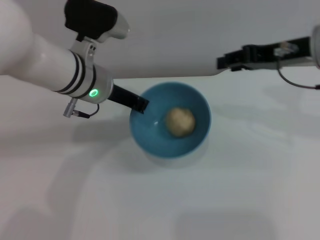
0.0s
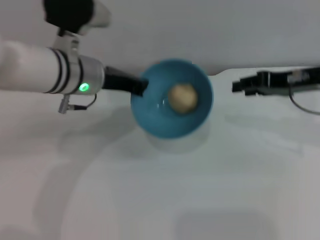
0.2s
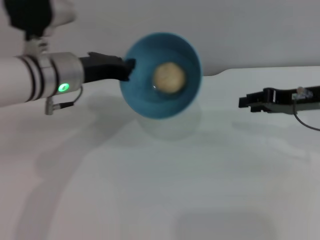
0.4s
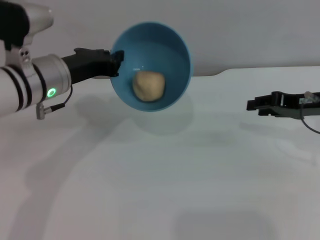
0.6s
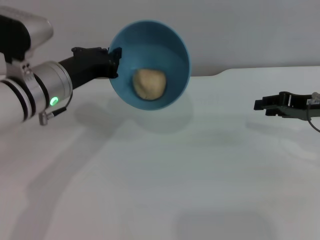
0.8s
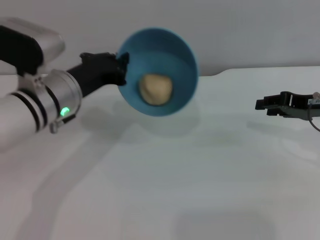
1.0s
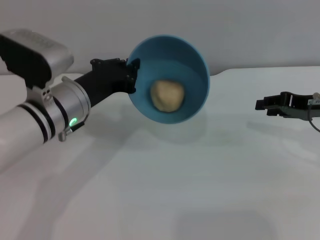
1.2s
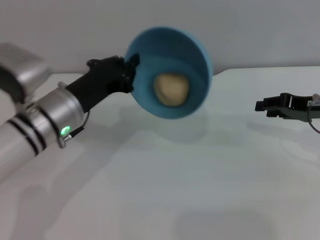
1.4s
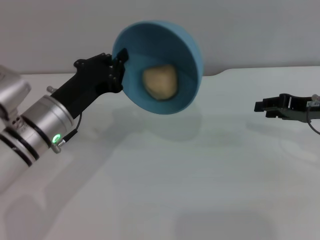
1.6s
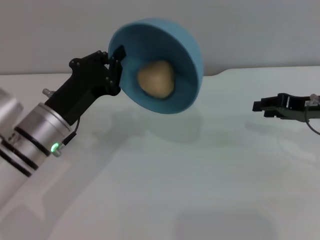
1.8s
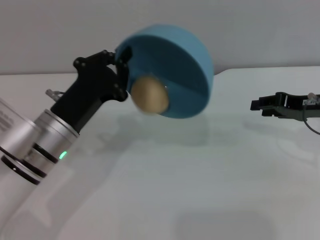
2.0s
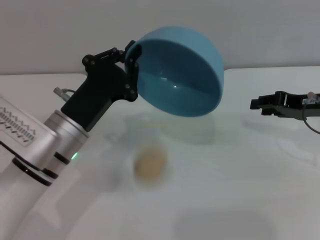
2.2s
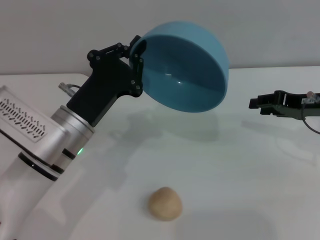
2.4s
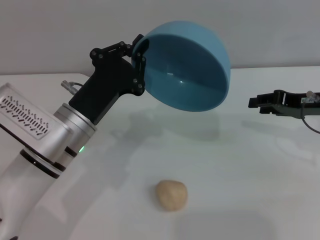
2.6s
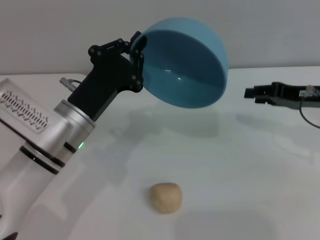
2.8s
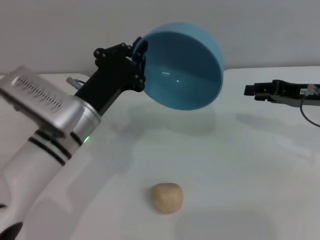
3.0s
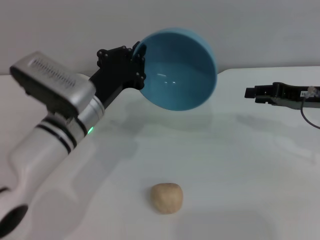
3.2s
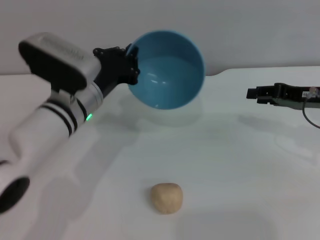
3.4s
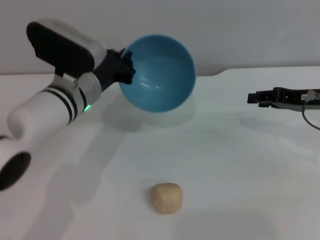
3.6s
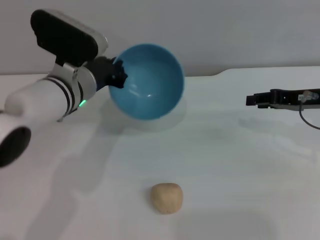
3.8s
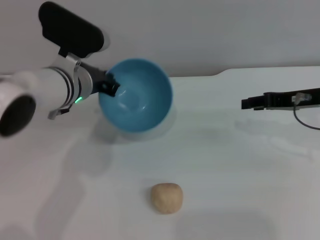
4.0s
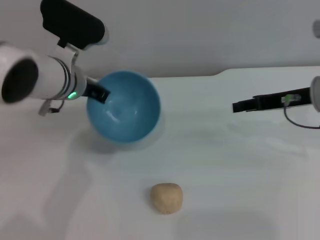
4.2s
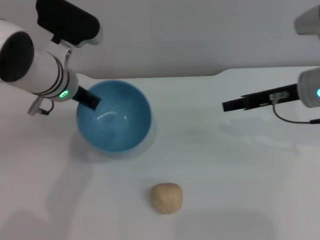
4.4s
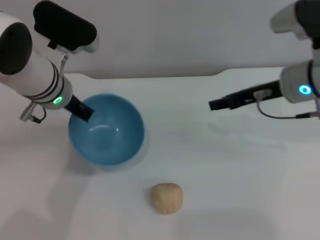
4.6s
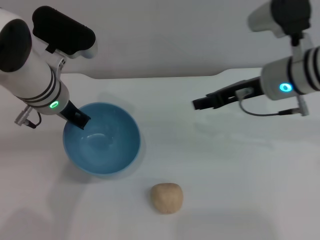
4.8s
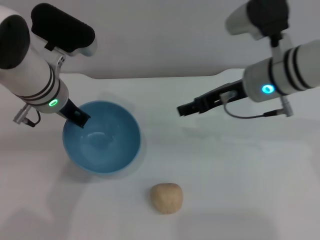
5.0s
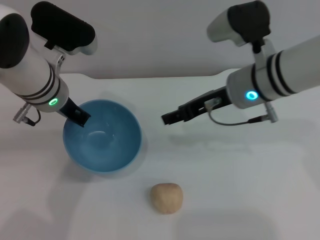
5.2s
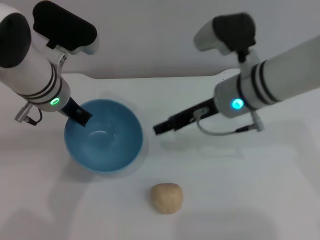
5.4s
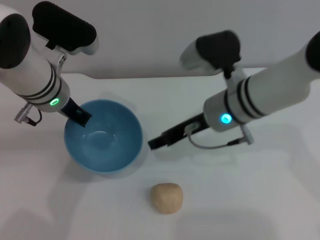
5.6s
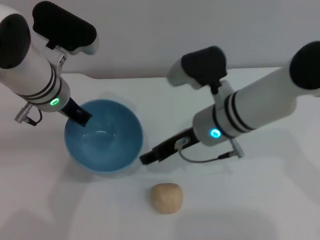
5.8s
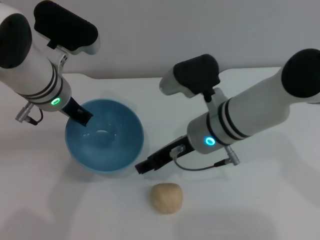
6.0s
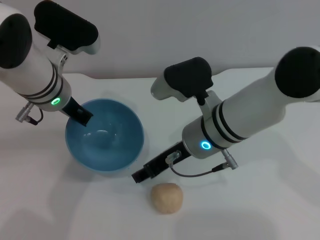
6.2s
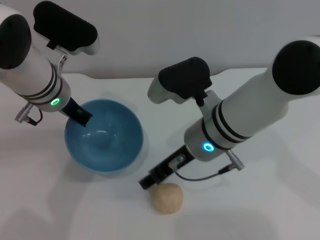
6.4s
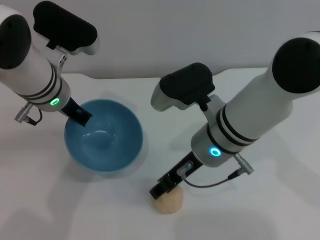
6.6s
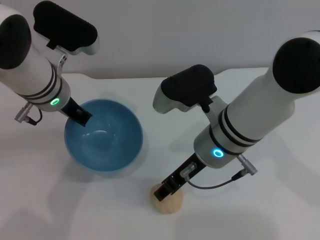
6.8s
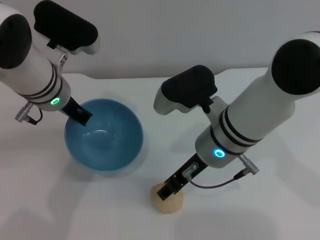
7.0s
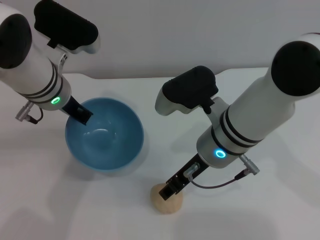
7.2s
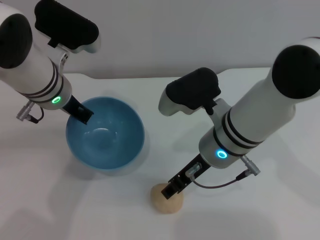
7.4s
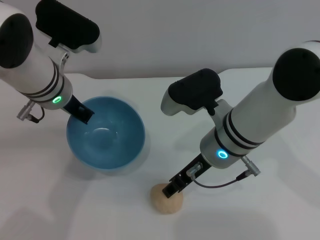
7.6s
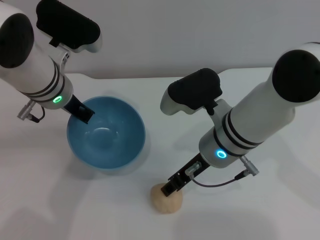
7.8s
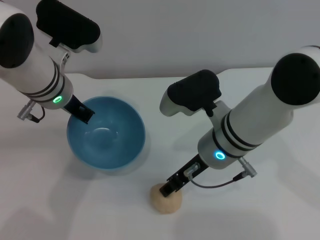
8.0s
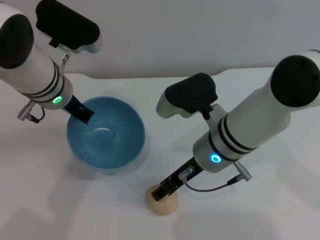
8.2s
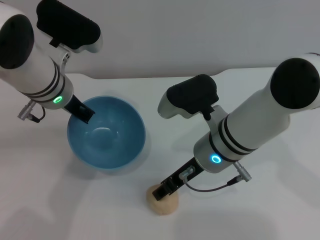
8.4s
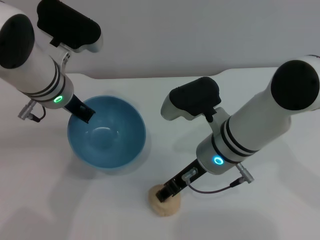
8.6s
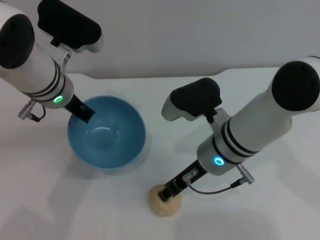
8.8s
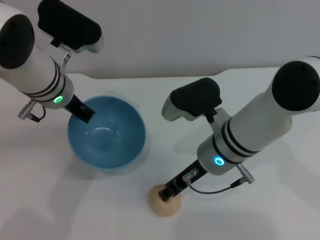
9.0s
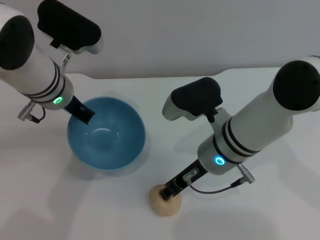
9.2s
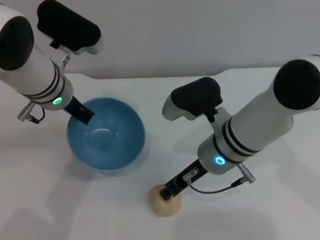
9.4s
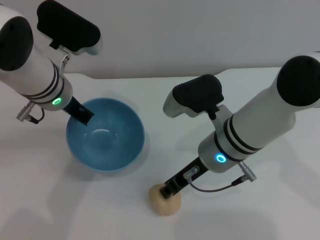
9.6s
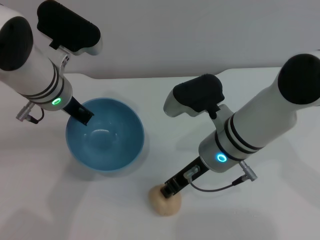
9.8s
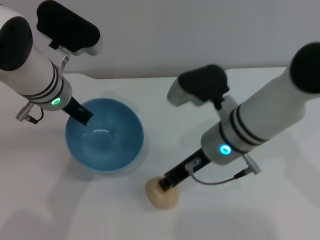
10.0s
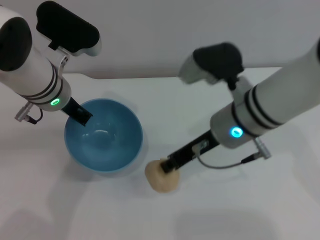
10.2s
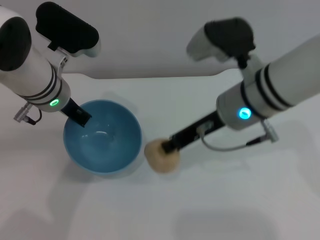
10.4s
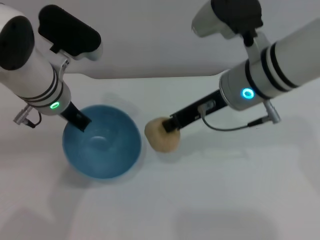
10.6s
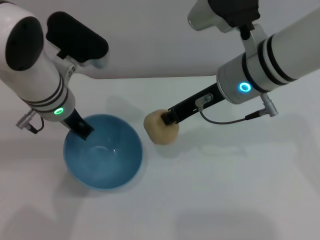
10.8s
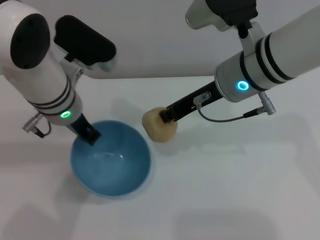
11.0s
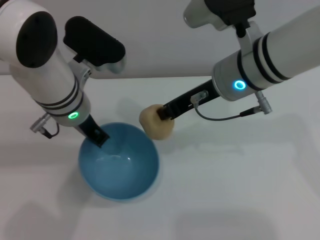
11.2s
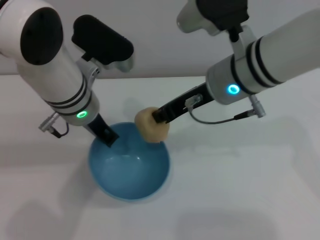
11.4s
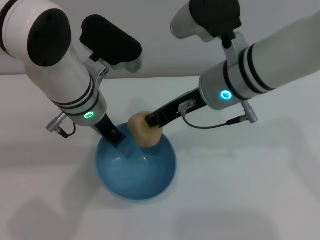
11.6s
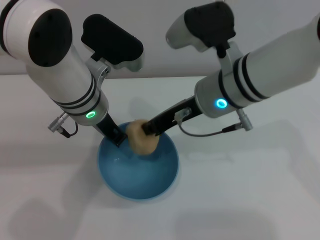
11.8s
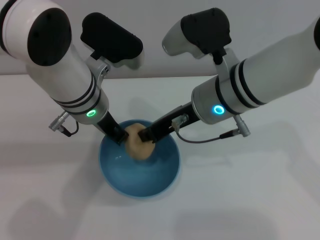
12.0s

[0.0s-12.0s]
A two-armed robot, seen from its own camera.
Task of the whole recording: put the egg yolk pastry into the blue bowl and pour it out repeatedly.
Step, 0.0s to 2.6s: Pour the egg yolk pastry out of bowl.
Step, 2.8s to 10.4s: Pick up the egg yolk pastry with the right gripper.
0.0s to 1.6s: The right gripper goes approximately 10 cm downward and to the right; the left gripper goes roughly 10 cm backward, to the left and downward.
3.0s to 4.4s: The right gripper is displaced to the left by approximately 5 cm. The left gripper shifts roughly 10 cm forward and upward.
4.4s to 6.0s: The right gripper goes about 15 cm to the left.
6.0s to 9.0s: The grippers stay close to where they were, moving slightly.
9.0s to 10.4s: The right gripper moves upward, roughly 10 cm, and closes up.
10.4s to 12.0s: The left gripper travels to the right by about 5 cm.

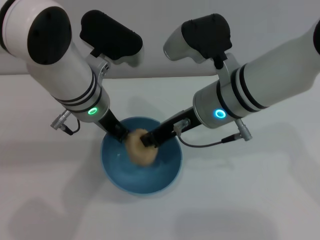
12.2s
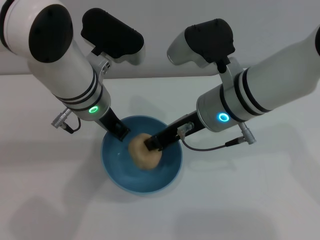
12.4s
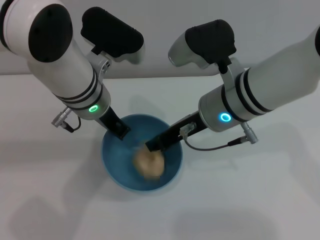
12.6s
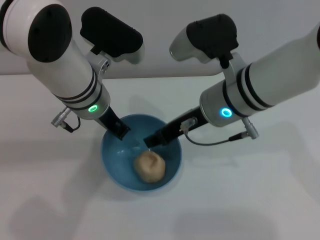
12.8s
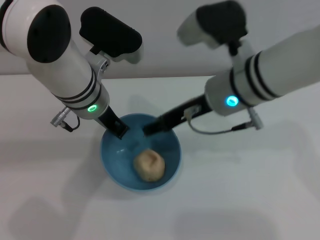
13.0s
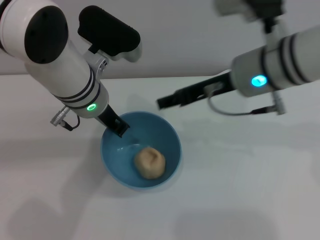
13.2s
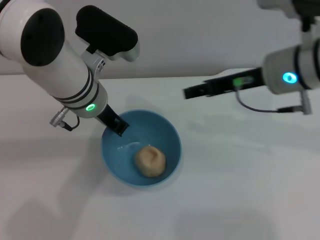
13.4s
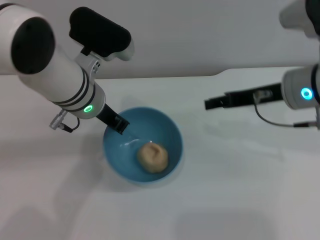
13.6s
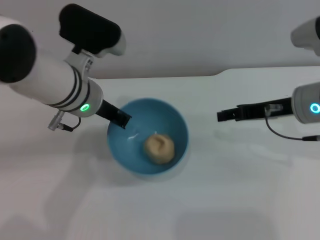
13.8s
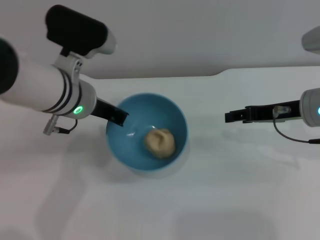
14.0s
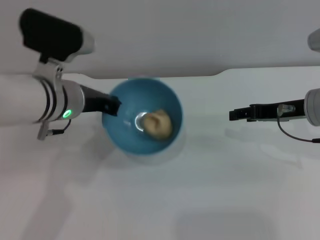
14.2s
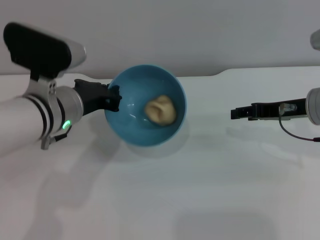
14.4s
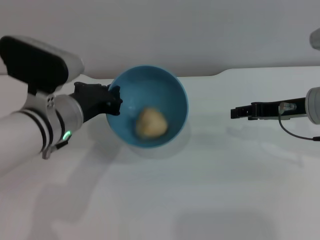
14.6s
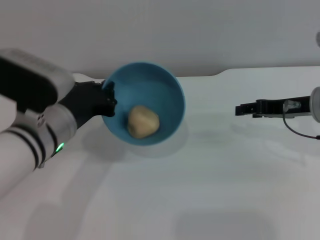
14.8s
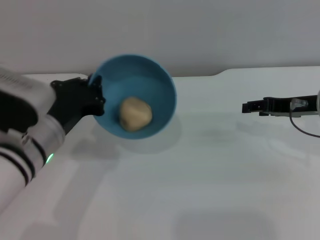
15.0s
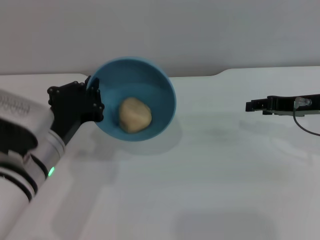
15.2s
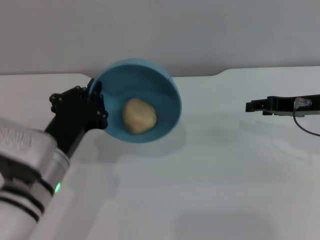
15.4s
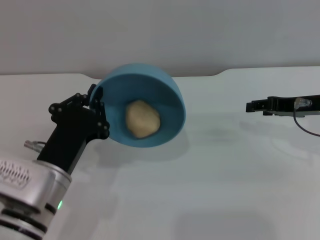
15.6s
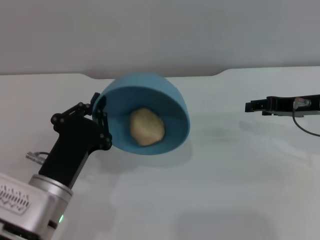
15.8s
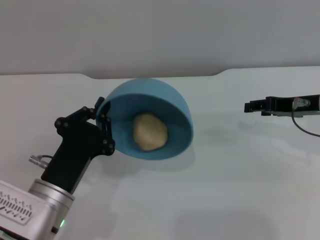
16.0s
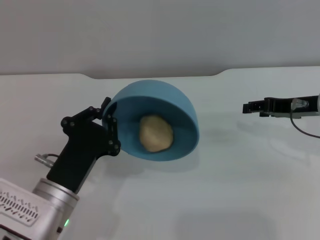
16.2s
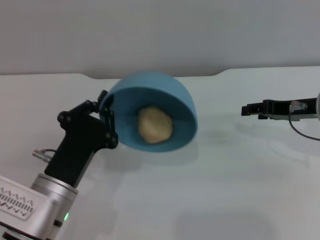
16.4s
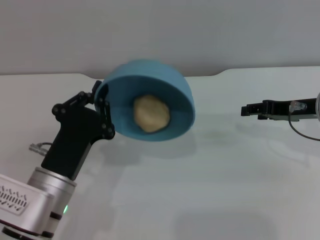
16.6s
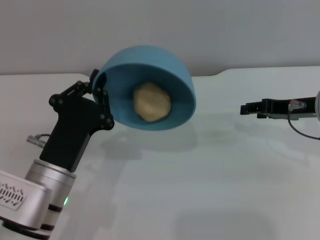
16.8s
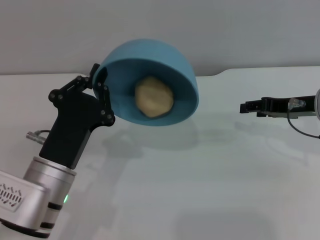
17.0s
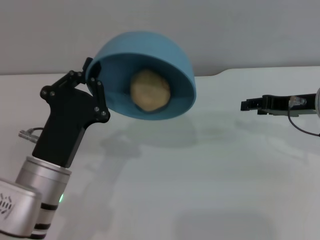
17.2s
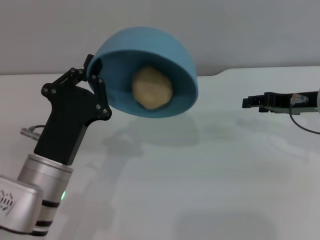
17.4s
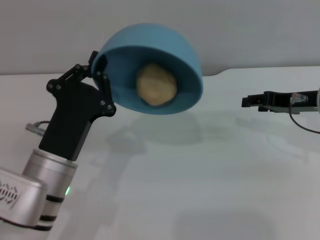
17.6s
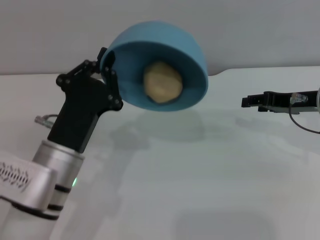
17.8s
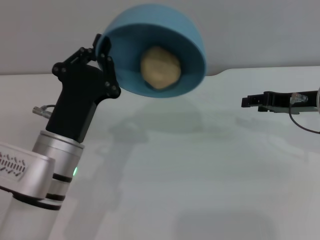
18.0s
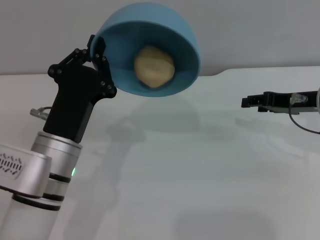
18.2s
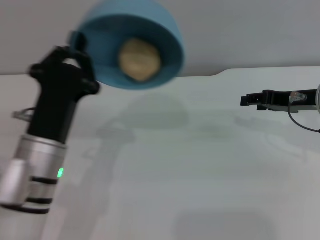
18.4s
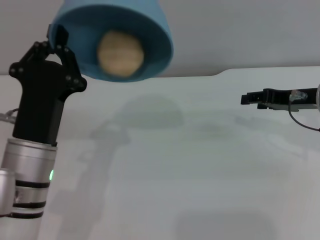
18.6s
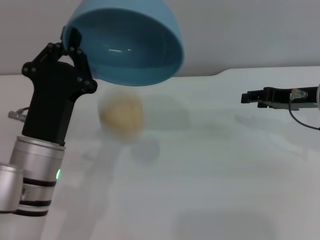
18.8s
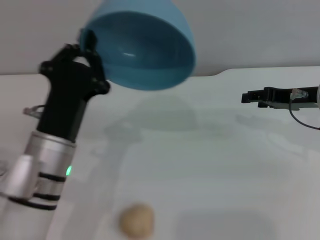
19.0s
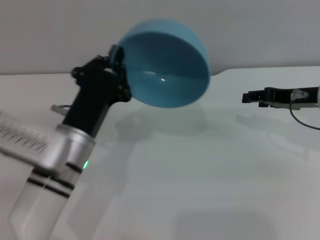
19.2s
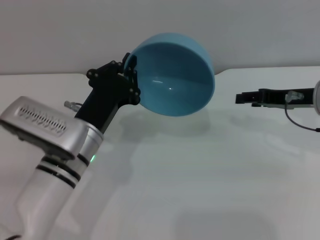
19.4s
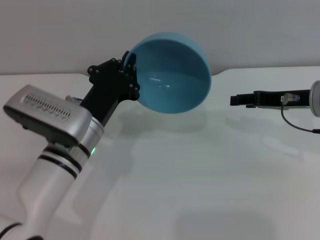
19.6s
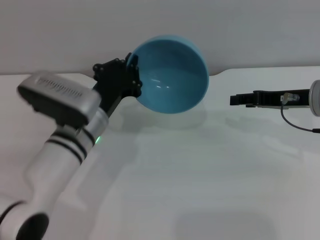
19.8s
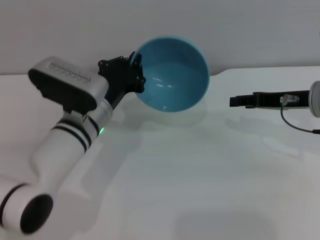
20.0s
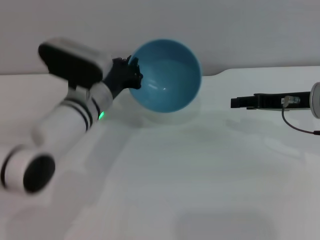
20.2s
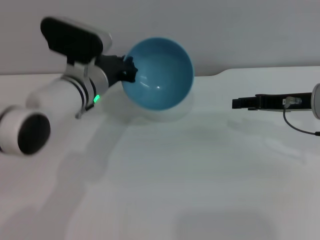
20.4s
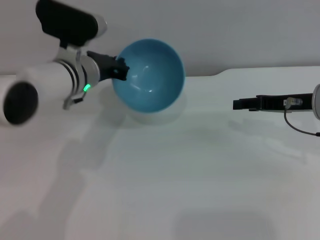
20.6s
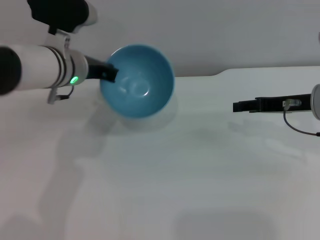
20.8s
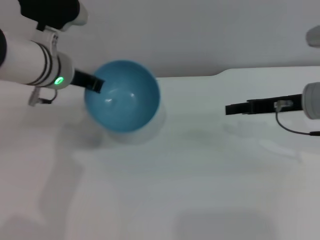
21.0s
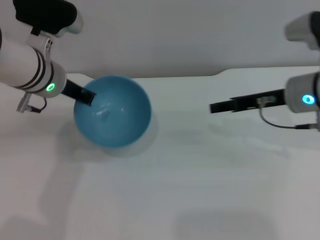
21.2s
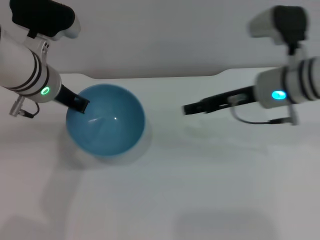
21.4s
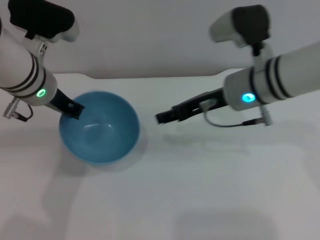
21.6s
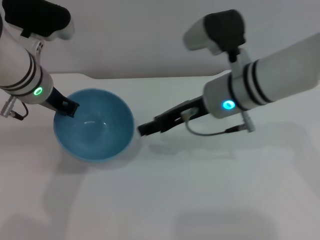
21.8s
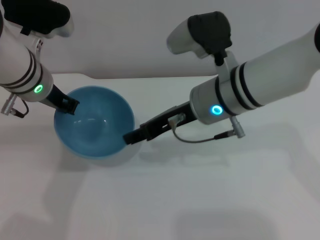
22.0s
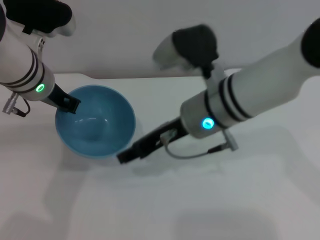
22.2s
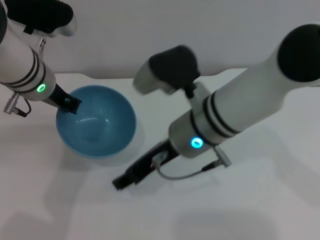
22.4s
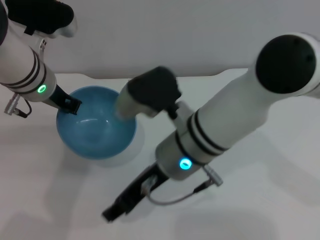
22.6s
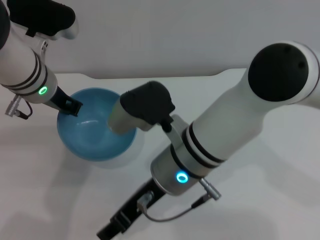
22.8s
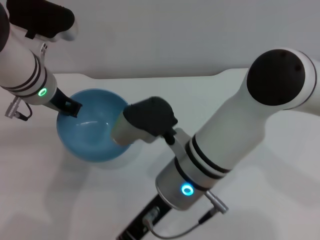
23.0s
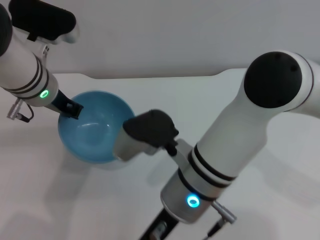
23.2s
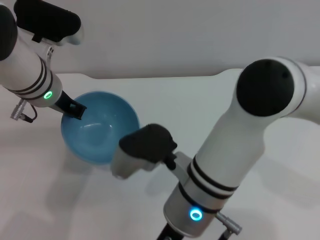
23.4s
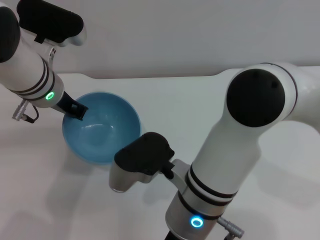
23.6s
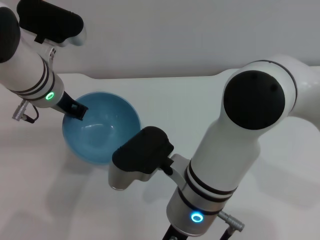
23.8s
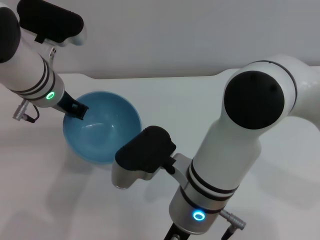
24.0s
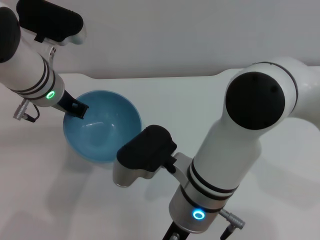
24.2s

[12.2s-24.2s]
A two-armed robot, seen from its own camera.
Task of the whole recording: put the egg yolk pastry into the blue bowl and pour it out repeatedly.
Step, 13.2s to 19.2s: Pour the egg yolk pastry out of bowl.
12.2s to 13.8s: The right gripper shifts some 15 cm to the right, and opens.
13.8s to 15.2s: The left gripper moves backward and downward, approximately 10 cm. The right gripper shifts by roughly 5 cm.
15.2s to 16.6s: The left gripper moves about 5 cm.
18.2s to 19.8s: The left gripper is displaced forward by roughly 10 cm.
19.8s to 21.2s: The left gripper shifts roughly 10 cm upward and forward.
21.2s to 22.6s: The right gripper shifts roughly 20 cm to the left and backward.
22.6s to 24.2s: The right gripper shifts by roughly 5 cm.
